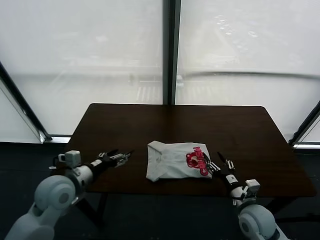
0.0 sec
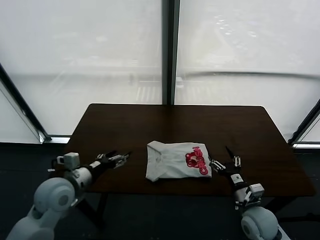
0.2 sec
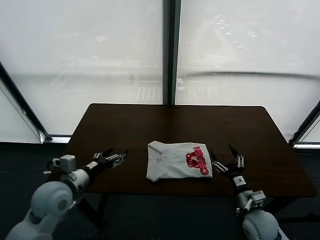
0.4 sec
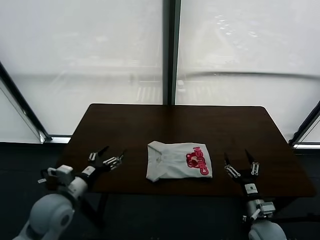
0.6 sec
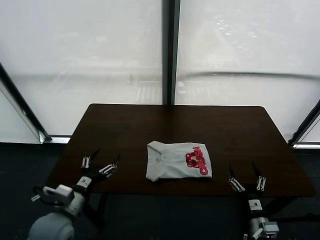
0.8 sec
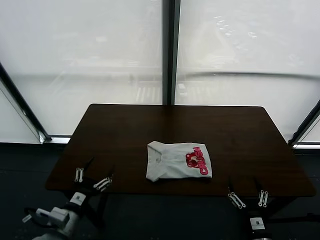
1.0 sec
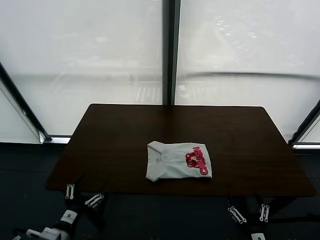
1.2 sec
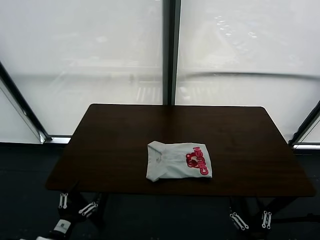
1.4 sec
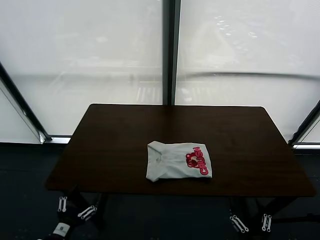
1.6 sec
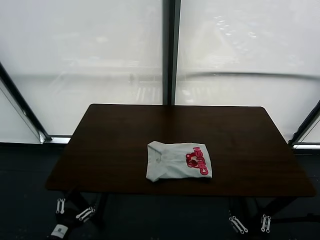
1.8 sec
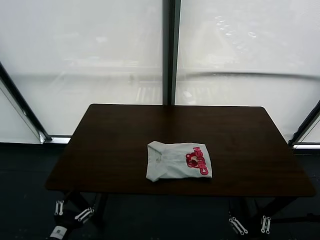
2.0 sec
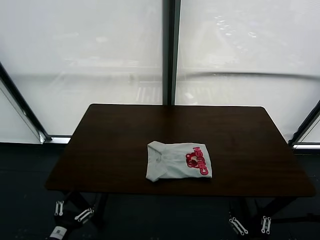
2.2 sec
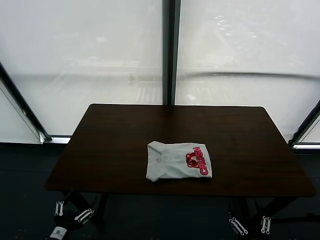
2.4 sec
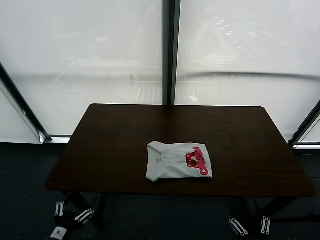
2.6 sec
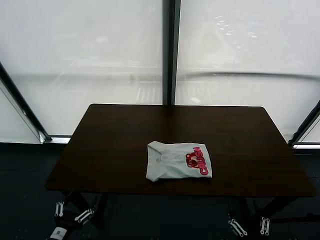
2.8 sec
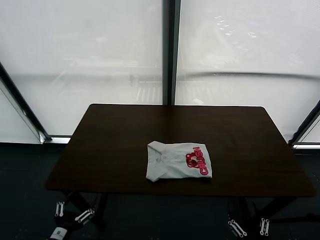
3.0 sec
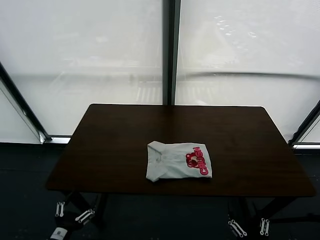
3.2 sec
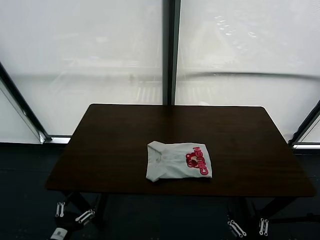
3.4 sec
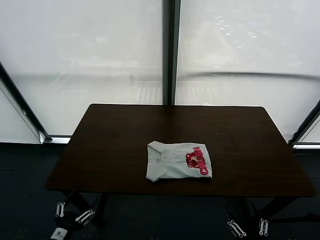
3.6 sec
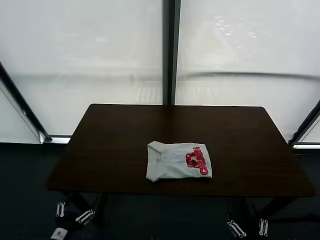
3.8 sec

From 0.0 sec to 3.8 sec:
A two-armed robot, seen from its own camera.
Task of the whole recording: fold and organize the clothes.
From 0.0 sec to 1.2 sec: The left gripper moves backward and downward, some 20 cm; the right gripper heads backward, covering some 20 cm, and opens its fingers.
From 1.2 sec to 2.6 sec: The left gripper shifts roughly 5 cm backward.
From 2.6 sec to 3.8 sec: Both grippers stay about where they are.

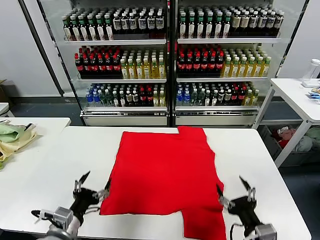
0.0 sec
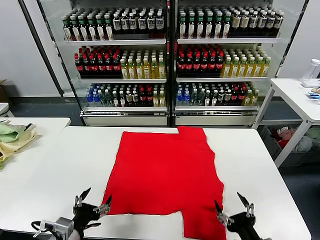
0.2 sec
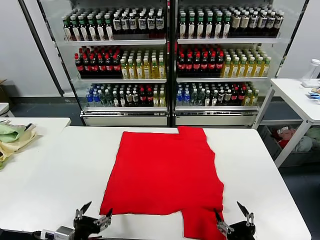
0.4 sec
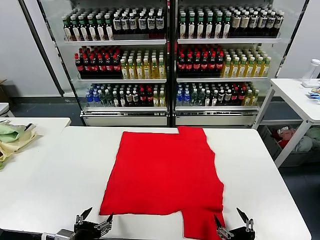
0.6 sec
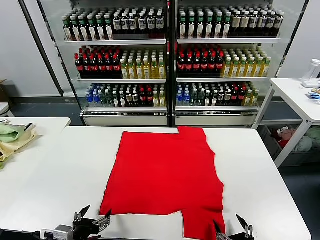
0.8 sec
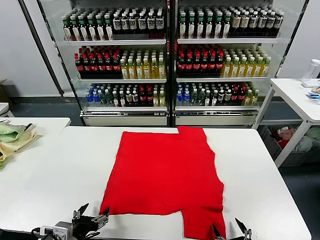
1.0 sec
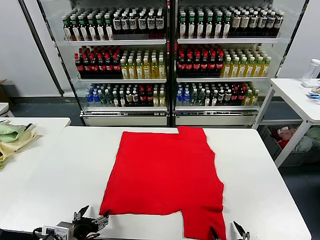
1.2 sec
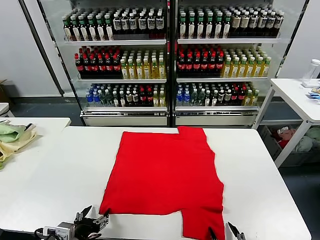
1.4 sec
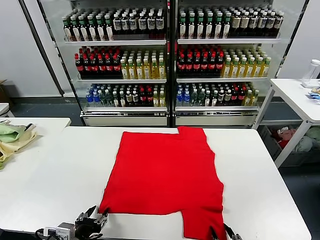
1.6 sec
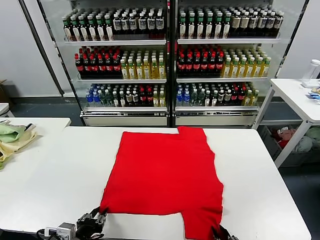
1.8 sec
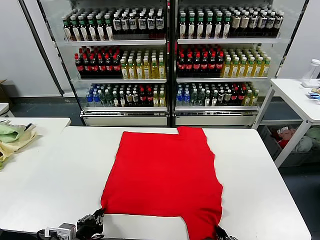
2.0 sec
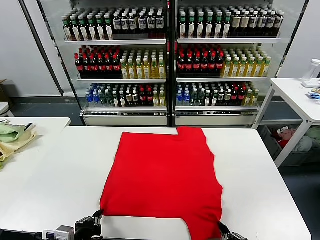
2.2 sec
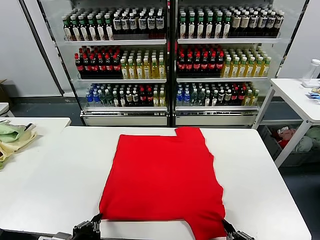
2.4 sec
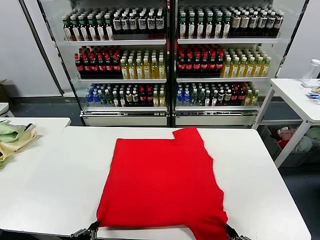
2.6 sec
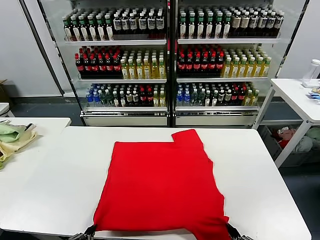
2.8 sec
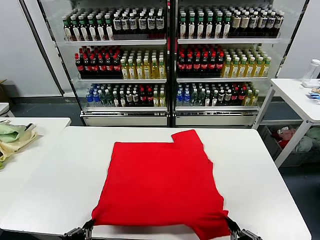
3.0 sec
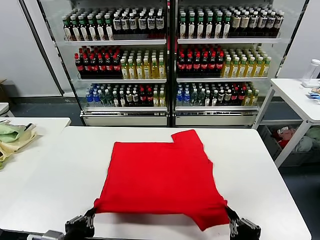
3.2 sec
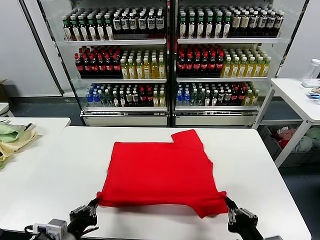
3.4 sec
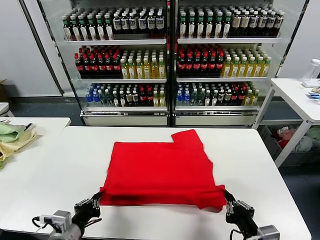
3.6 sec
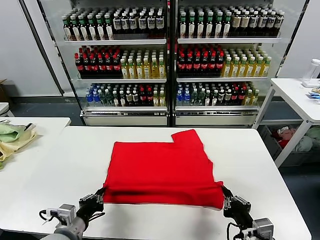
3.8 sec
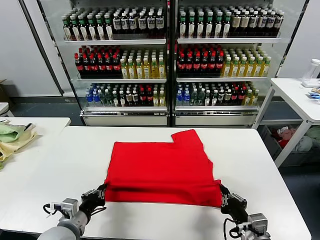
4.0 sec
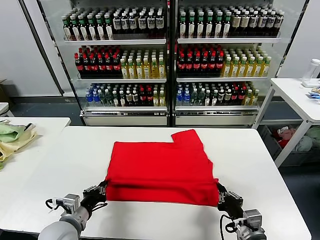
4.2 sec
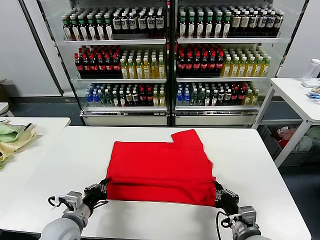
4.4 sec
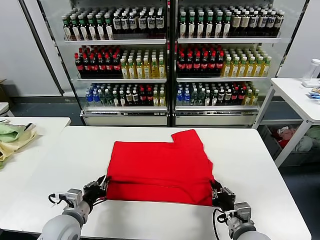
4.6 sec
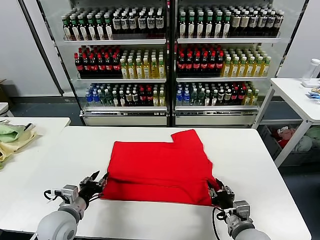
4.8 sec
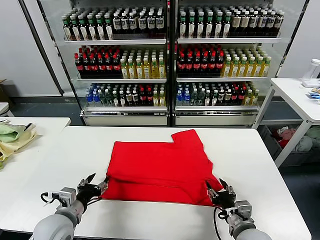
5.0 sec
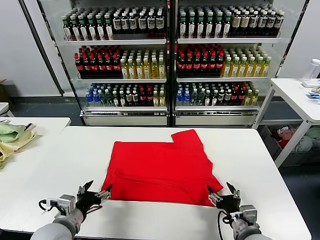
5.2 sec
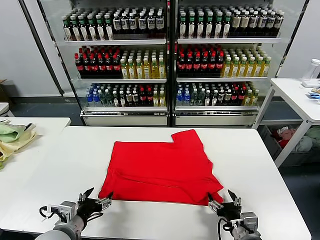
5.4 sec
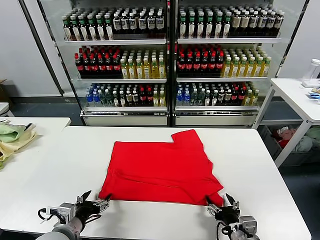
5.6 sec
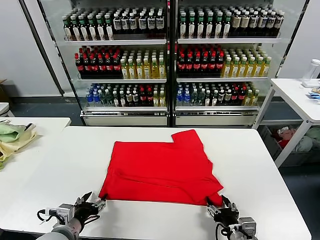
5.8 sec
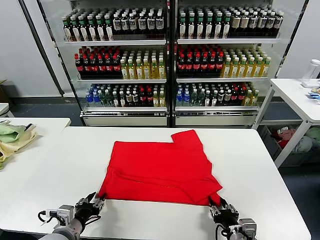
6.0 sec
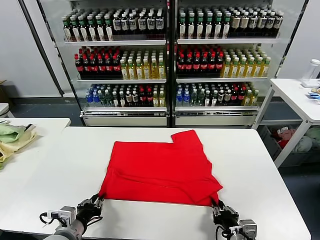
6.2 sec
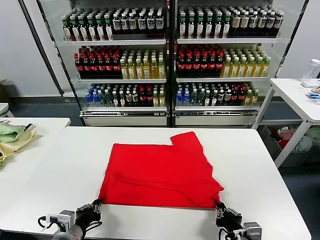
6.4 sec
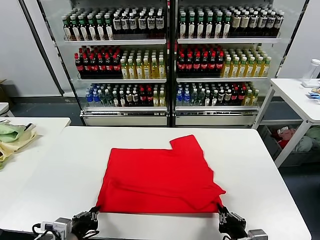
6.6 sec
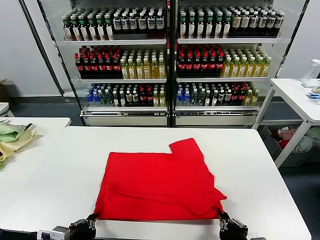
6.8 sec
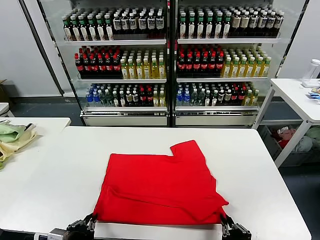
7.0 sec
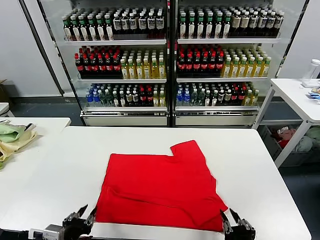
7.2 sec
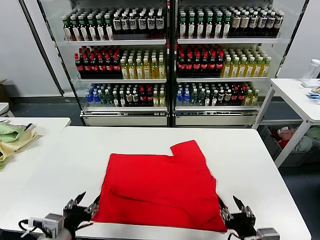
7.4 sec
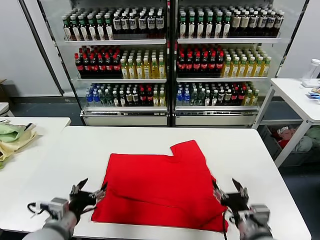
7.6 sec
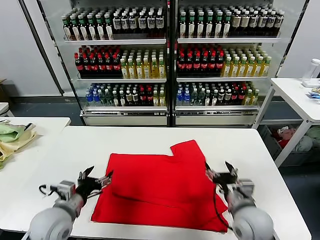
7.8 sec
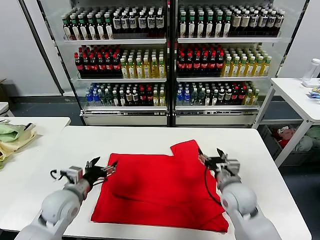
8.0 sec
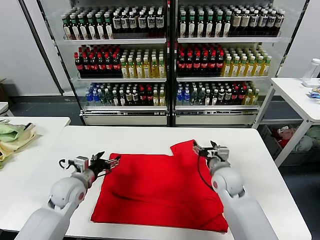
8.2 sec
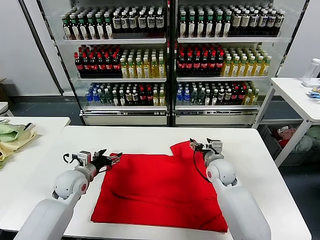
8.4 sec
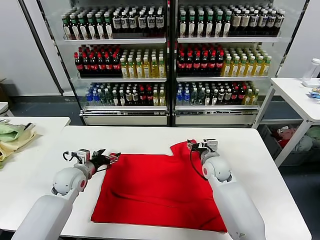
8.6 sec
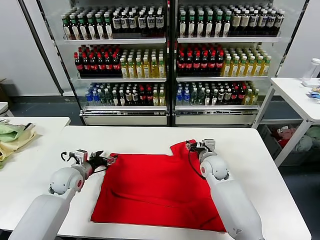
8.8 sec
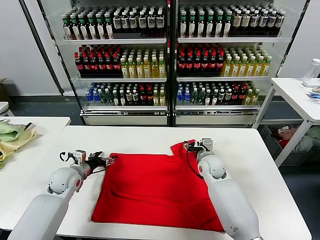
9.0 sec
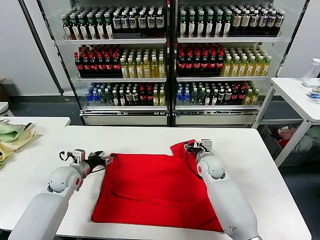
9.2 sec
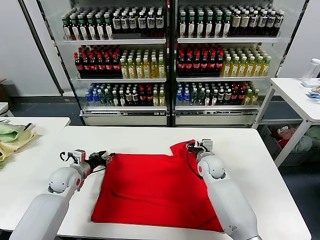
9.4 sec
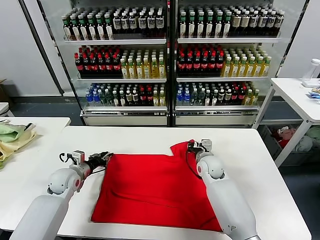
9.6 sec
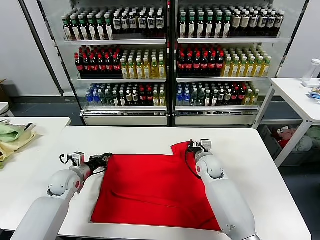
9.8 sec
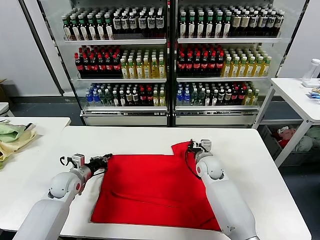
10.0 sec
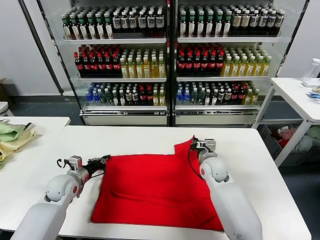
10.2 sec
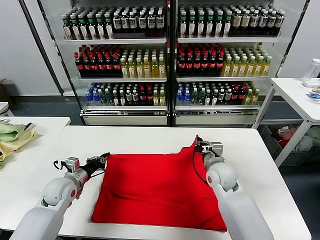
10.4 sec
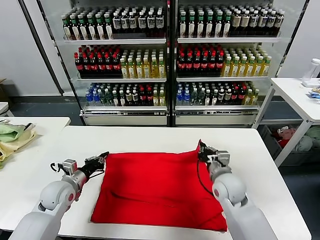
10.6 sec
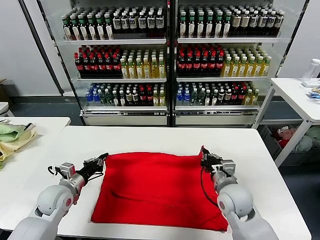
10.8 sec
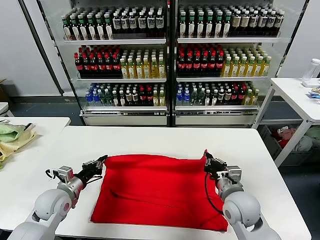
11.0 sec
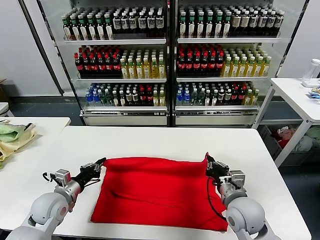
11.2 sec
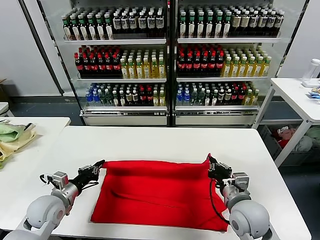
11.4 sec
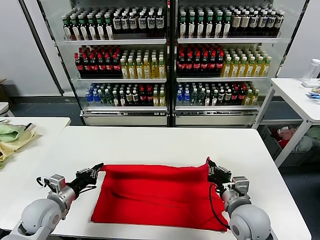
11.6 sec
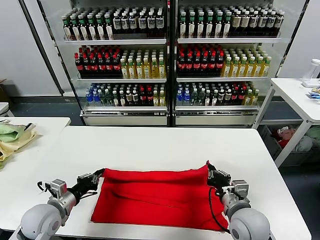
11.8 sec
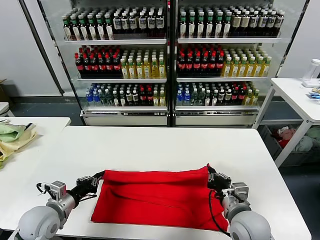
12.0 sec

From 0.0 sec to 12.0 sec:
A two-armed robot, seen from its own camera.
Task of the whole recording: fold and organize the clothes.
Step, from 0.0 sec to 2.0 sec: use both grippers simultaneously to clamp the lower edge of the clothing fabric.
Step, from 2.2 sec to 4.6 sec: use both grippers to drag the lower edge of the fabric forward and fold it over the upper edge.
Step, from 4.8 sec to 7.0 sec: Drag the clothes downward with both gripper.
Step, from 7.2 sec to 9.8 sec: use both grippers simultaneously to clamp the upper edge of the clothing fabric.
From 1.6 sec to 3.0 sec: The right gripper moves upward, approximately 10 cm, and closes; the left gripper goes approximately 10 cm upward and backward, and closes its fingers.
From 3.0 sec to 4.4 sec: Both grippers travel together forward and downward, approximately 15 cm.
From 4.4 sec to 6.0 sec: The right gripper opens, then closes again. The left gripper opens, then closes again.
From 6.0 sec to 7.6 sec: The right gripper shifts approximately 10 cm upward and forward, and opens up; the left gripper shifts roughly 5 cm upward, travels backward and back again, some 5 cm each way, and opens up.
From 7.6 sec to 9.0 sec: Both grippers travel together forward, about 25 cm.
From 9.0 sec to 10.4 sec: The right gripper goes about 10 cm backward, and closes its fingers. The left gripper closes.
From 10.4 sec to 12.0 sec: The two grippers go about 15 cm backward.

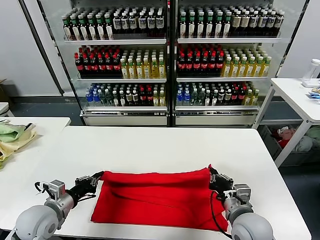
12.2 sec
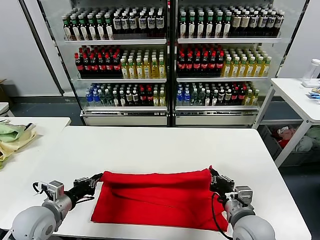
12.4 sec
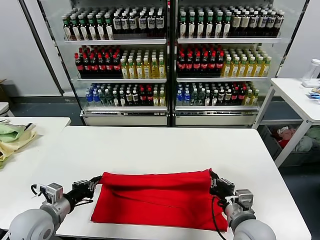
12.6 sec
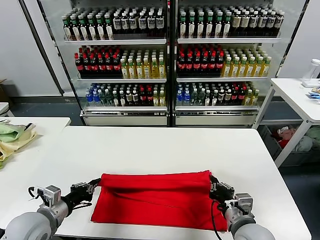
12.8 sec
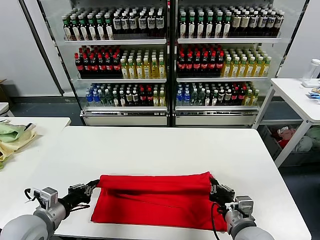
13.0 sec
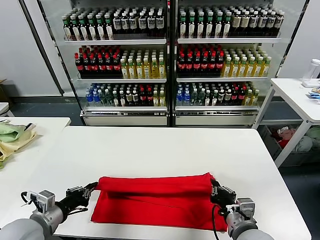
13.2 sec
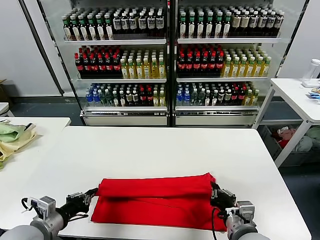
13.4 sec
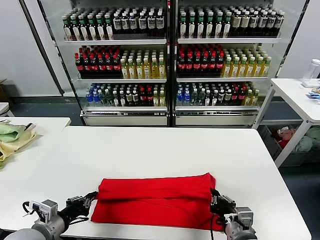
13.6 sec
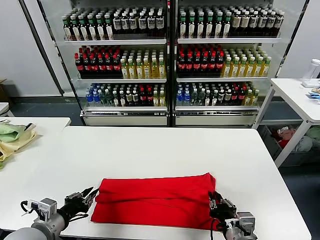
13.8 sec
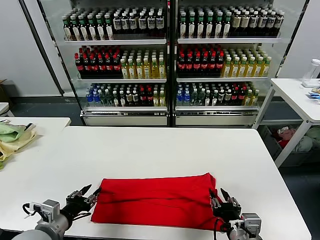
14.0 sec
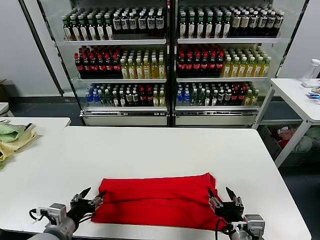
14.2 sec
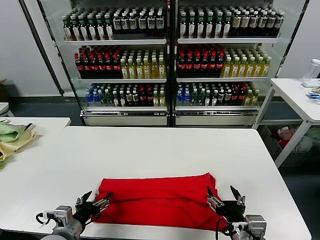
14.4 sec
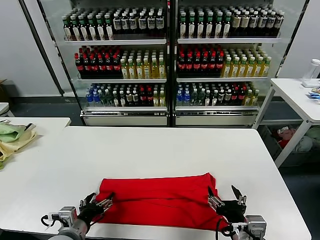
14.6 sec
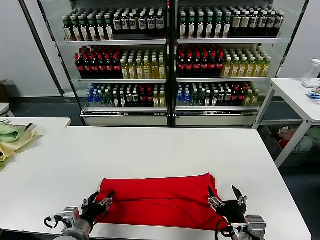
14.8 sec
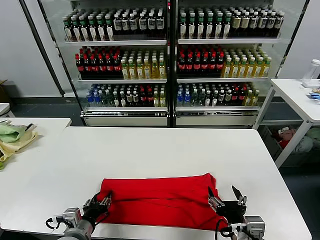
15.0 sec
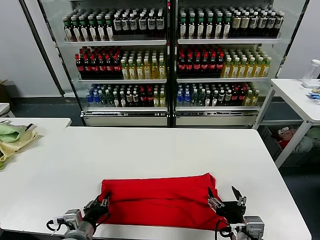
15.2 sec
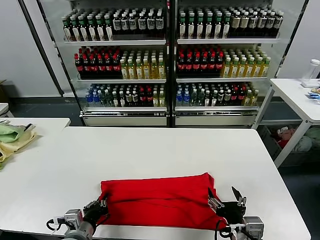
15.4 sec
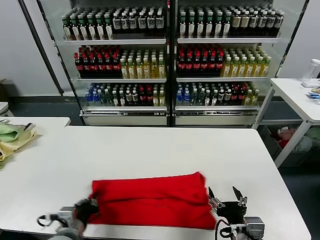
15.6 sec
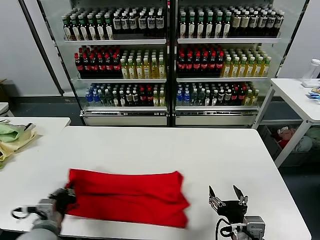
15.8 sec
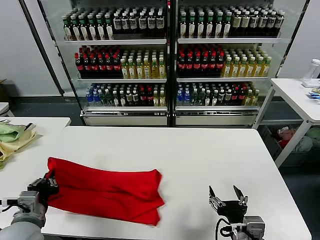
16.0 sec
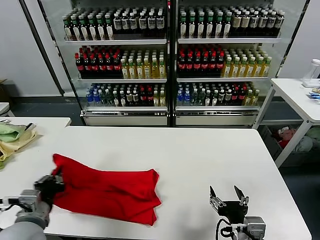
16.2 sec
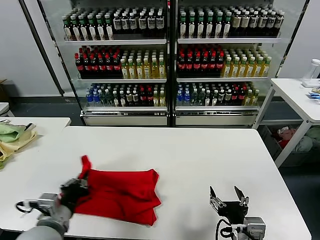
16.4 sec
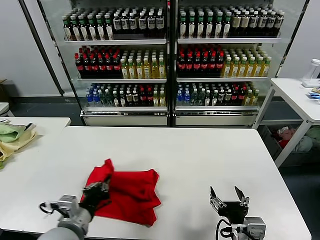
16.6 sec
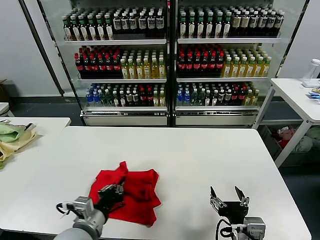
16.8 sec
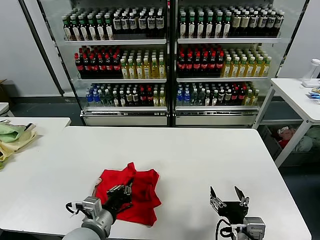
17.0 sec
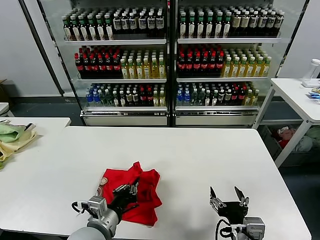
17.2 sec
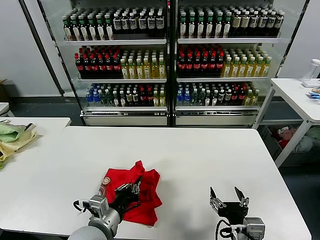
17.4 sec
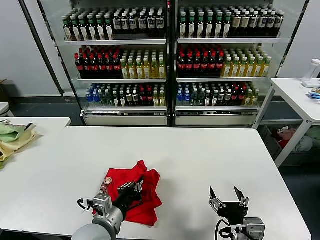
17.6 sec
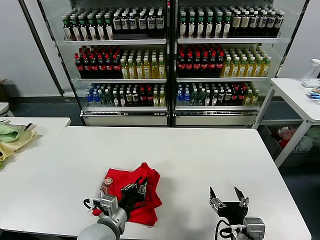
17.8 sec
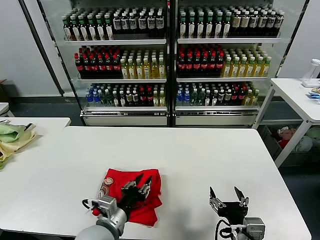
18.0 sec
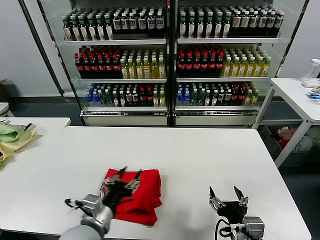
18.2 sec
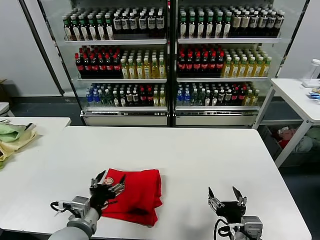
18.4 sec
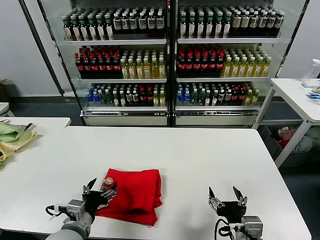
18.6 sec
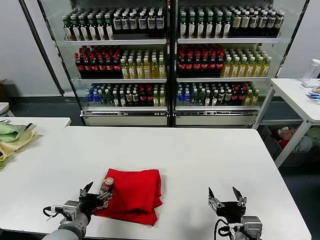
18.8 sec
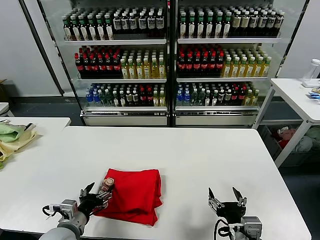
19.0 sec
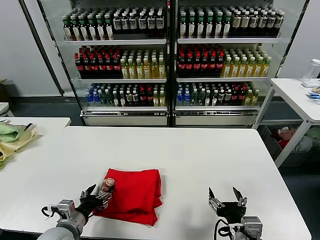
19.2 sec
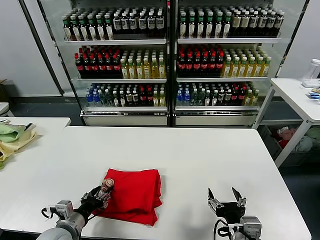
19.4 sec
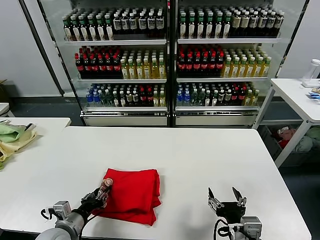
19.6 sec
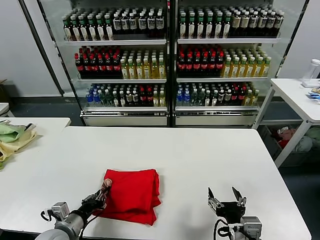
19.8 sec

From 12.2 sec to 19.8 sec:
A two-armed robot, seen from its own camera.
Task of the whole recording: fold and organize the clothes.
Step, from 14.0 sec to 15.4 sec: use the left gripper to clamp the left edge of the fabric.
Step, from 15.6 sec to 18.0 sec: use the left gripper to drag the left edge of the fabric to the left and folds it over the right edge.
From 12.2 sec to 13.8 sec: The grippers both shift backward by approximately 5 cm. The right gripper opens its fingers.
From 13.8 sec to 15.2 sec: The left gripper goes approximately 10 cm to the right and downward, and opens, then closes again. The right gripper opens.
From 15.2 sec to 16.8 sec: The left gripper is displaced upward by some 5 cm, and goes to the left and returns, about 10 cm each way.
From 16.8 sec to 18.2 sec: The left gripper opens.
From 18.2 sec to 19.8 sec: The left gripper moves to the left and downward, approximately 15 cm, and closes its fingers.
